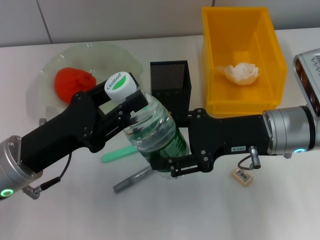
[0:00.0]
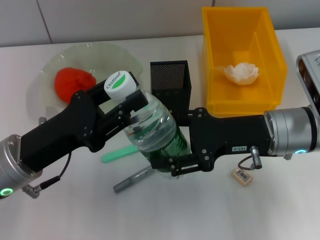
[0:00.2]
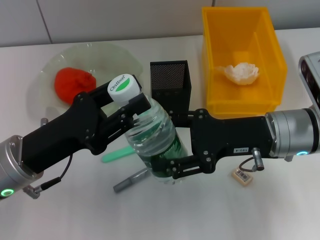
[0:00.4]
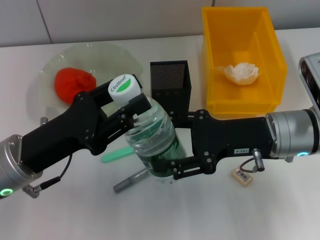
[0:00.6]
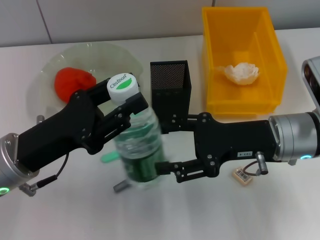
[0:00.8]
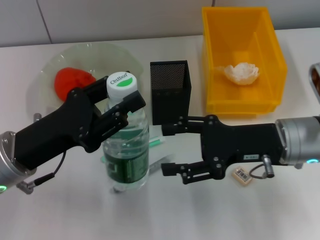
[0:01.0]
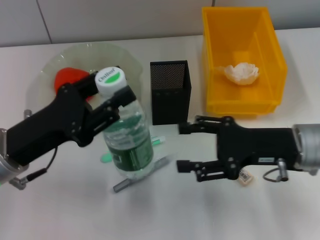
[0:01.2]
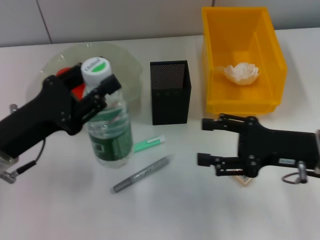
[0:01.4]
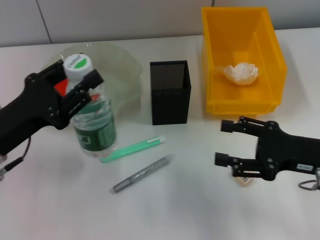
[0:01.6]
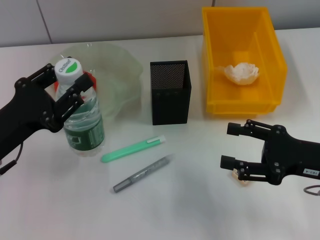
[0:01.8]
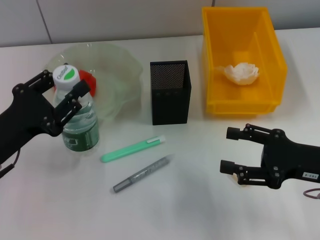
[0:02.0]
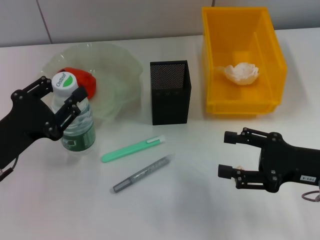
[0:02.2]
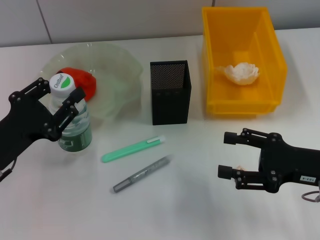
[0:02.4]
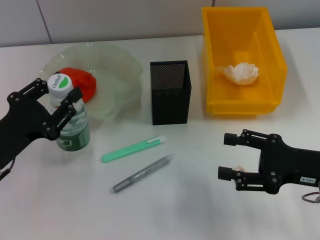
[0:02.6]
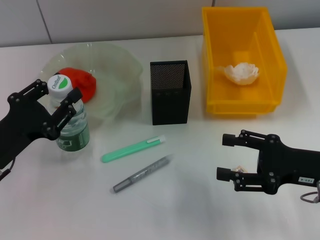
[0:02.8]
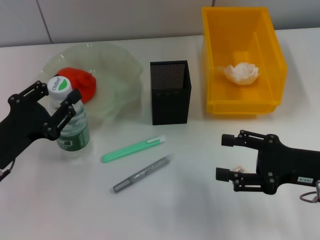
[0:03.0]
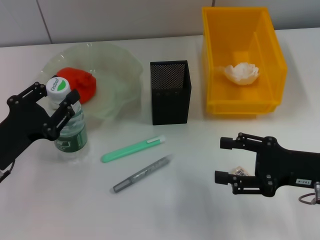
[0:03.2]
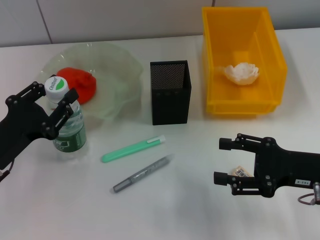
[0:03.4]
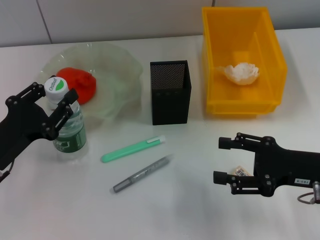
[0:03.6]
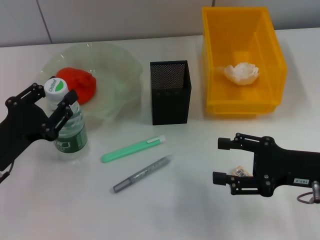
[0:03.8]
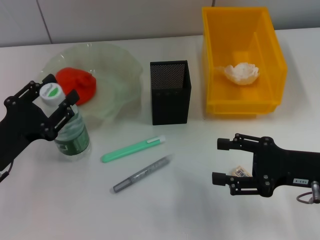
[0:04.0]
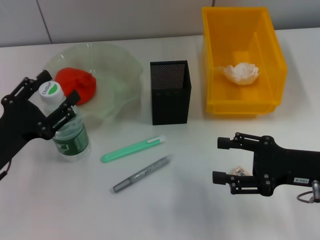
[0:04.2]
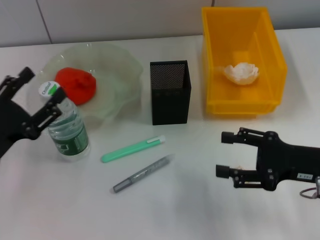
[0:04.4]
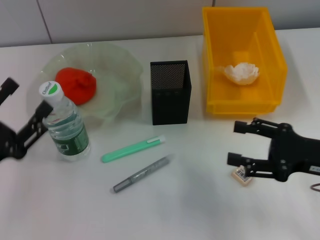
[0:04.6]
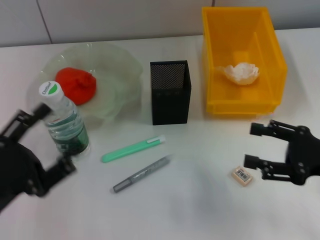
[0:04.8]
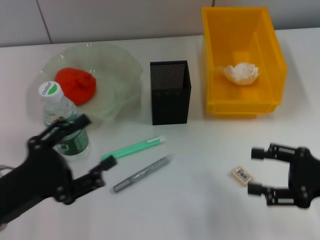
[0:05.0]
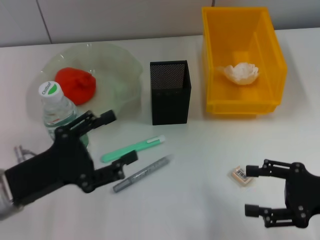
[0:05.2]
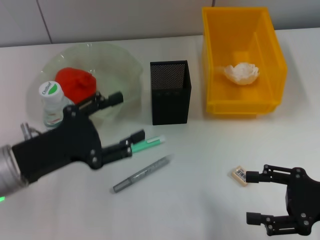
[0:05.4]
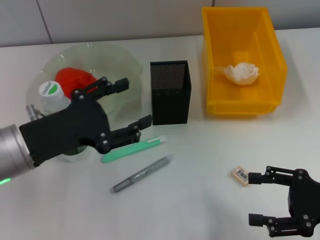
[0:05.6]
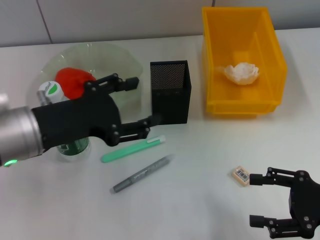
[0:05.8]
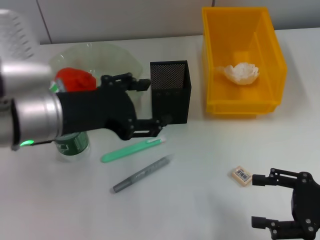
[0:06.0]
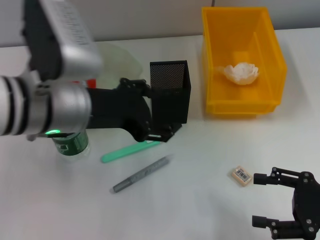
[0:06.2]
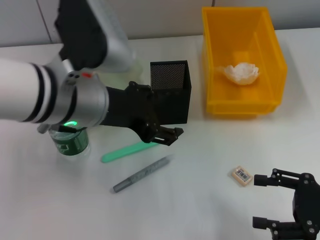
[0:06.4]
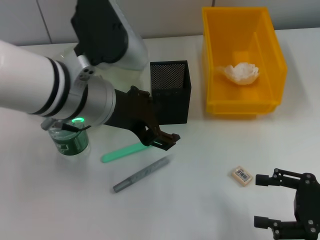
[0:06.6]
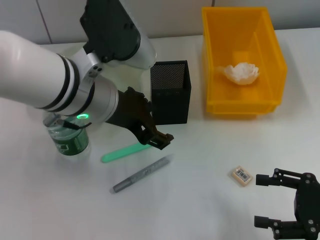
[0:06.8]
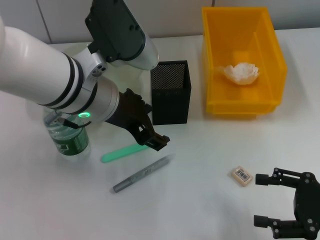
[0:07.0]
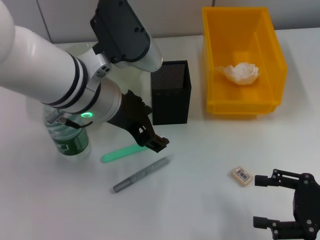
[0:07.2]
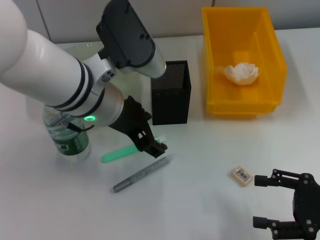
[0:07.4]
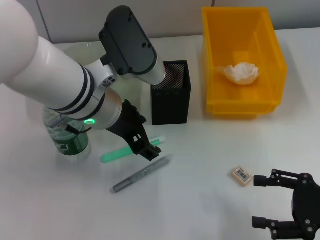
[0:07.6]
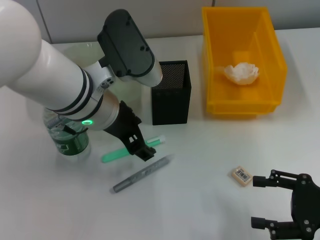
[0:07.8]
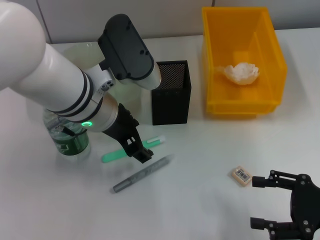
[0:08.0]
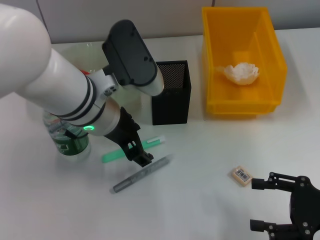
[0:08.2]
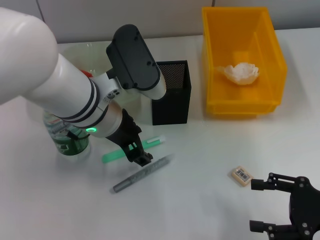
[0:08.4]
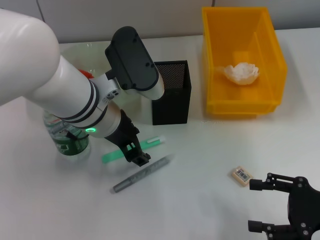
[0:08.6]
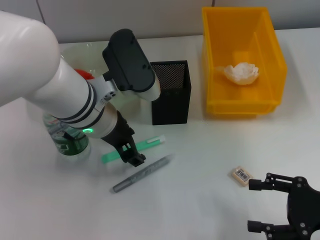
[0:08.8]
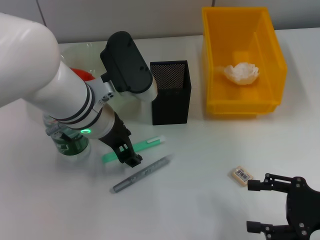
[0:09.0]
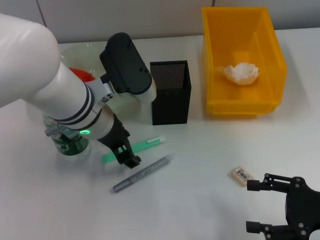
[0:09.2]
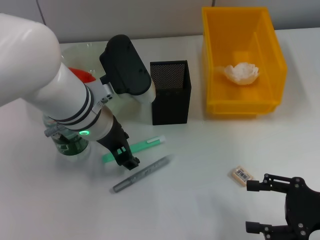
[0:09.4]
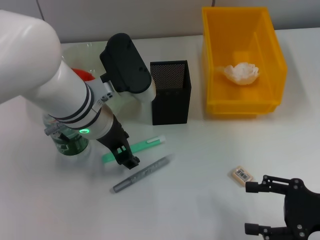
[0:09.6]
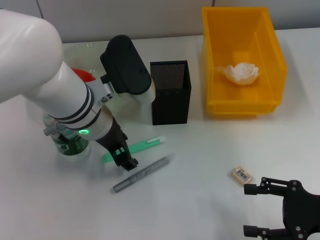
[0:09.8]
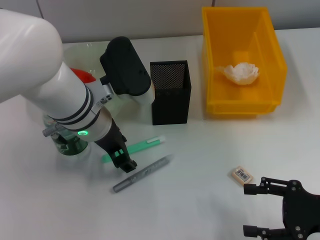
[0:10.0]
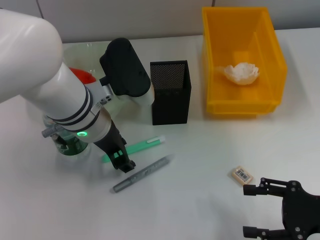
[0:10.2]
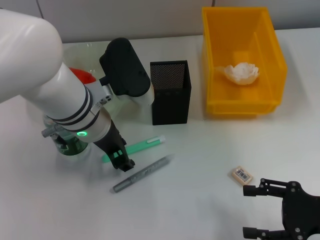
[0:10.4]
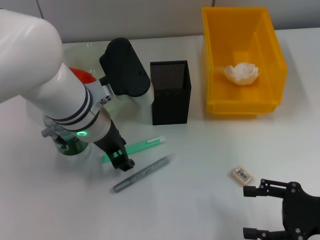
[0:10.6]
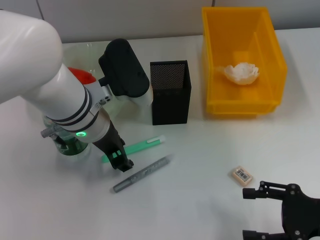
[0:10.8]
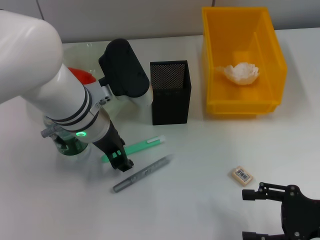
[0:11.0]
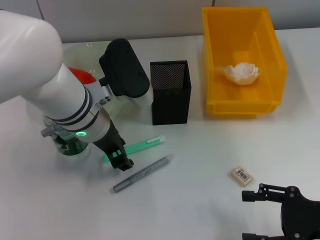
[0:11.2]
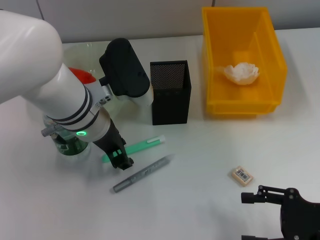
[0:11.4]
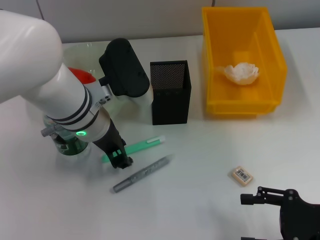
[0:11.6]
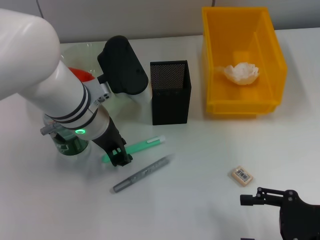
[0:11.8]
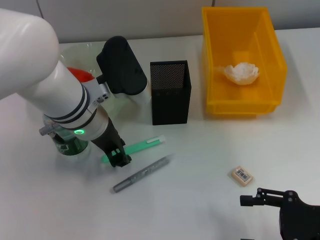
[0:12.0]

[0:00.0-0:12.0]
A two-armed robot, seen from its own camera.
Step, 0:01.0 to 0:04.0: Place the water bottle on the table with the left hand.
0:00.0 to 0:01.6: The right gripper moves to the right and backward, roughly 10 cm.
0:03.0 to 0:04.4: The left gripper opens up.
0:04.4 to 0:06.0: The left gripper heads upward and to the right, covering approximately 15 cm. The right gripper is displaced backward by about 5 cm.
0:06.0 to 0:07.6: The left gripper moves to the right, some 10 cm.
0:07.6 to 0:09.0: The grippers make only small movements.
0:09.0 to 0:10.4: Both grippers stay about where they are.
0:10.4 to 0:12.0: The two grippers keep their place.

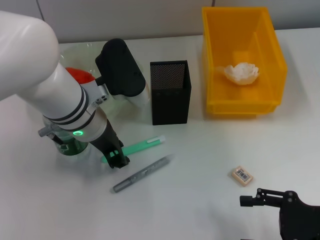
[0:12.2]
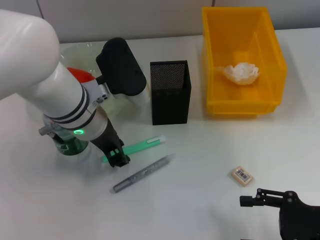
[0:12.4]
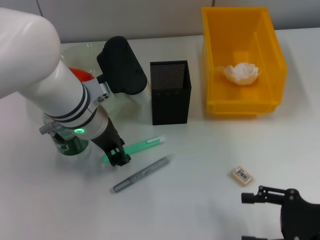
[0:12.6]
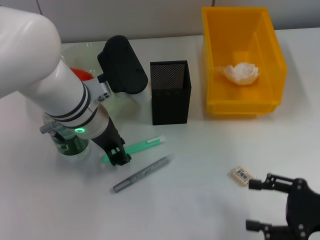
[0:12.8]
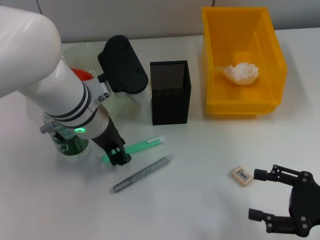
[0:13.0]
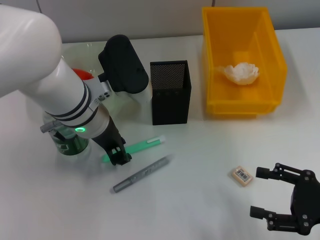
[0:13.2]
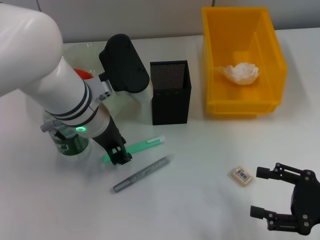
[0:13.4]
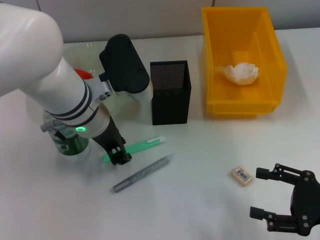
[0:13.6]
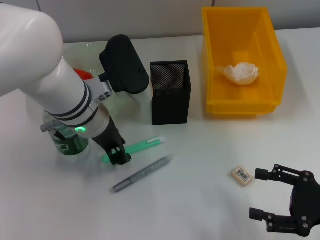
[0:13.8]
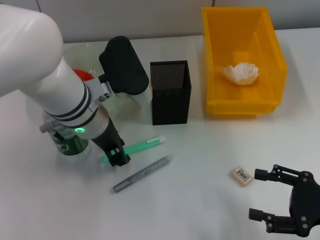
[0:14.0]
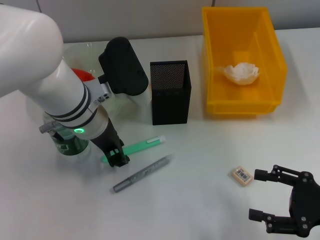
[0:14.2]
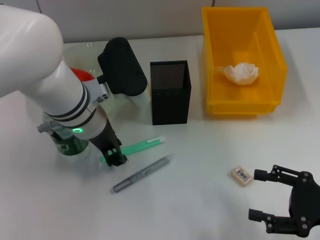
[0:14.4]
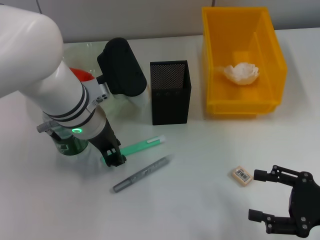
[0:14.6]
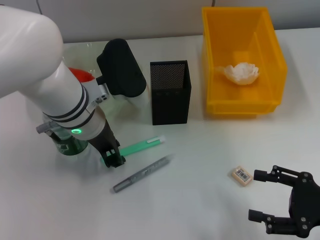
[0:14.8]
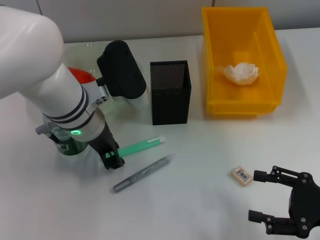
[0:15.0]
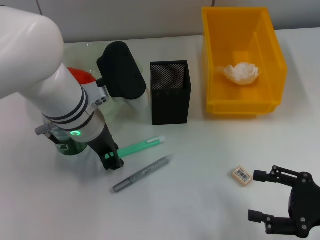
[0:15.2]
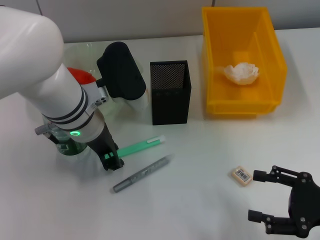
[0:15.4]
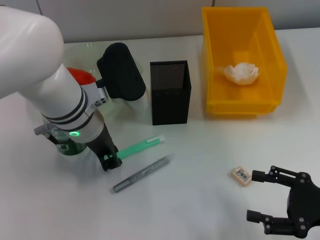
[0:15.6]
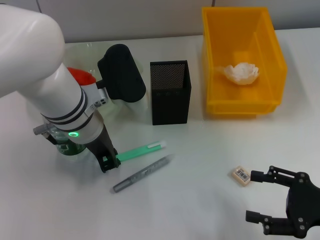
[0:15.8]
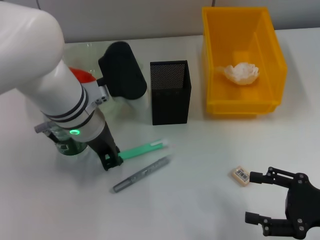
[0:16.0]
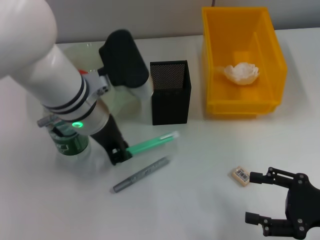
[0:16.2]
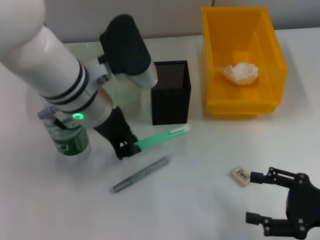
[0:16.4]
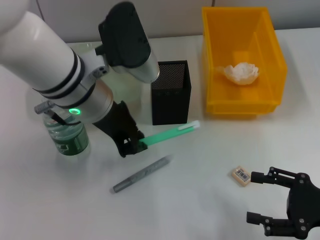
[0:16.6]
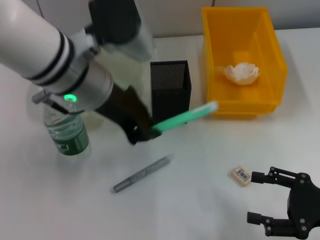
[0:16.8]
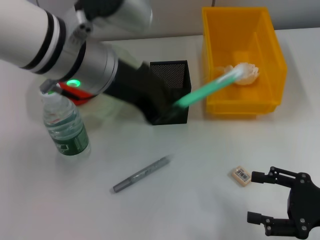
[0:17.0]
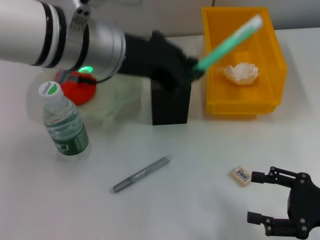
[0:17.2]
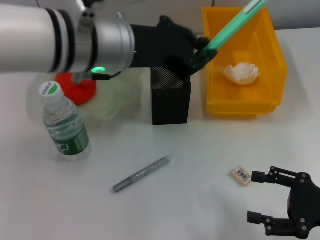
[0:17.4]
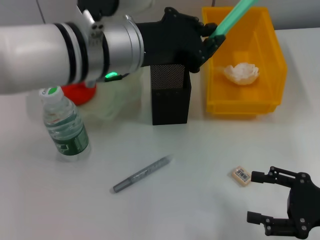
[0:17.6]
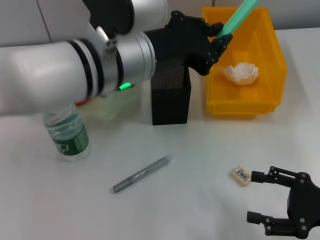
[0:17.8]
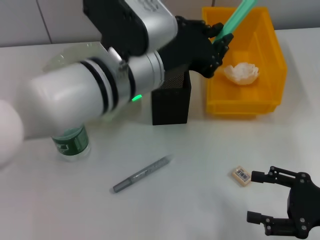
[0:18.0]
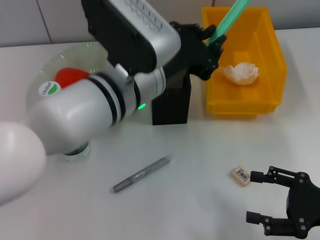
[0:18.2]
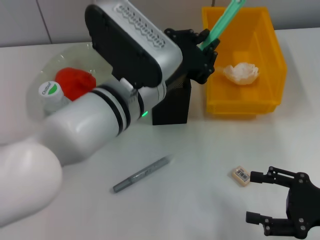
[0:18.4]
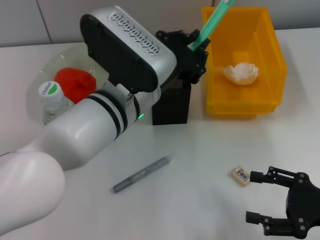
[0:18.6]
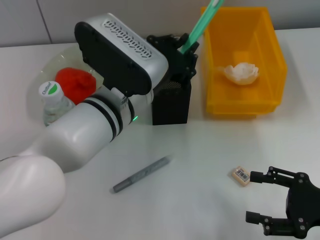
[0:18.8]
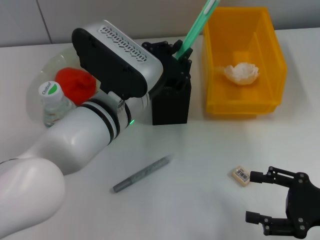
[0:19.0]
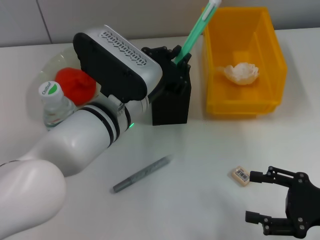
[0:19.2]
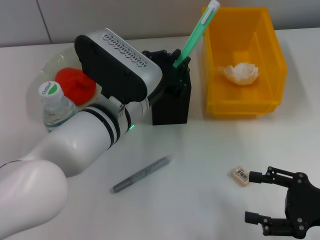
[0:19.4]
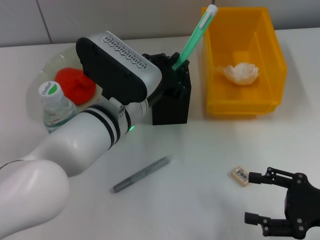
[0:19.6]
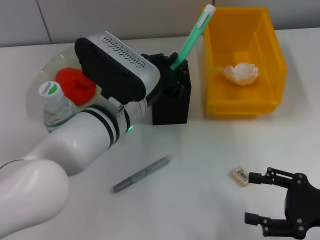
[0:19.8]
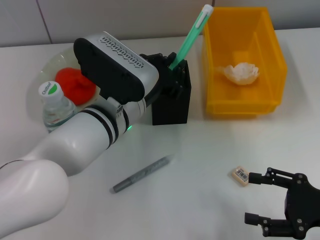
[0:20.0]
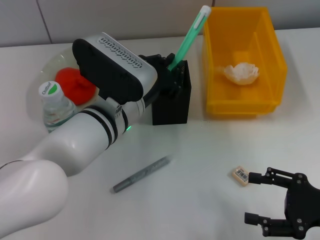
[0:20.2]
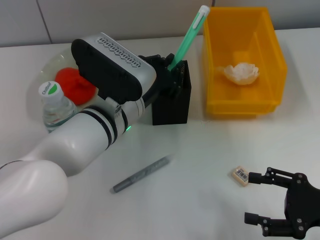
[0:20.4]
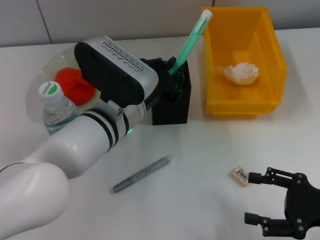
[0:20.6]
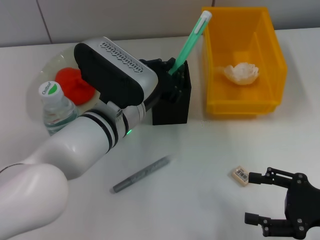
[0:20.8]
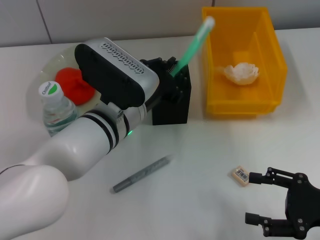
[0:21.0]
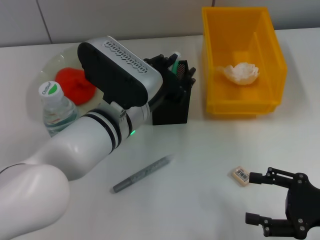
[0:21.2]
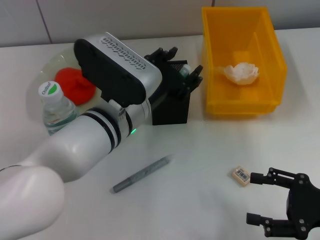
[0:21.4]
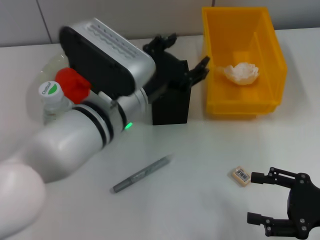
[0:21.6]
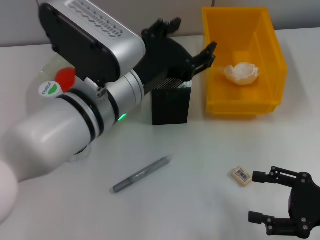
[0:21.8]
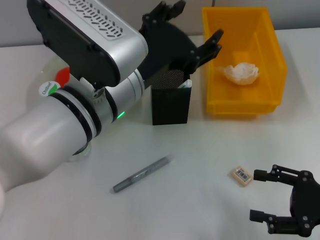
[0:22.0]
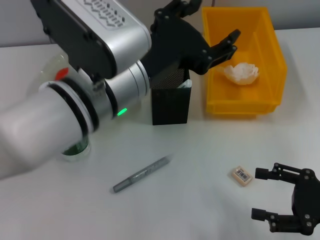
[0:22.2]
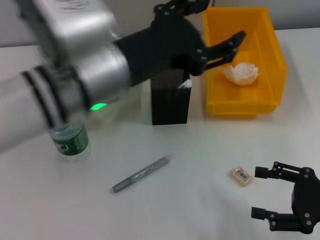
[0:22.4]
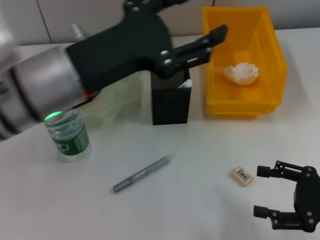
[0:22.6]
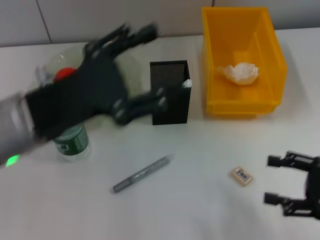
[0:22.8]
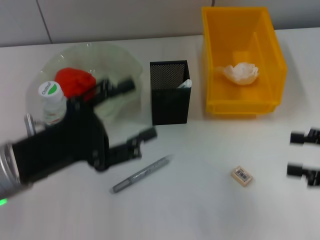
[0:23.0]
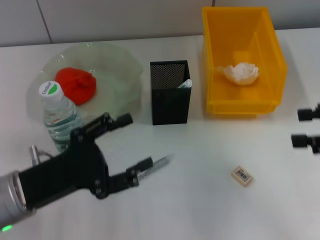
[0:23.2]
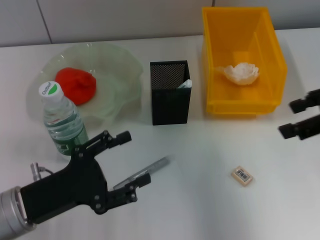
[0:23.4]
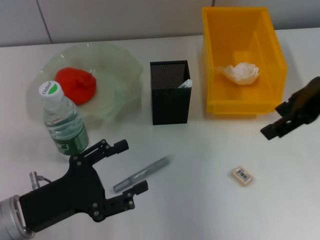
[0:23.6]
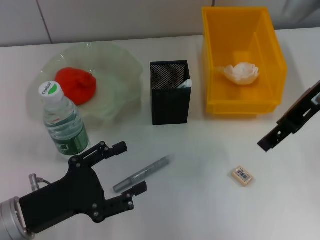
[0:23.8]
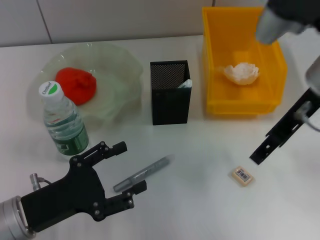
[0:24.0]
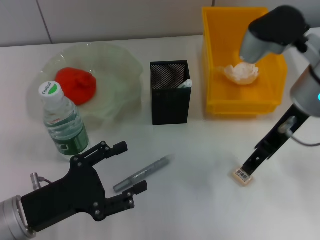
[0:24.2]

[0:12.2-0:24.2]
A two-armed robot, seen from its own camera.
Step, 0:12.2 to 0:15.6: Grab the blue utility knife with the left hand.
Step, 0:15.8 to 0:21.4: Place the blue utility knife into the pen holder with the left hand.
0:12.2 to 0:13.8: The grippers stay close to where they were, moving slightly.
0:13.8 to 0:15.2: Neither gripper changes place.
0:15.2 to 0:16.6: The left gripper goes approximately 5 cm upward.
0:16.6 to 0:18.2: The left gripper changes place by roughly 5 cm.
0:18.2 to 0:19.8: The left gripper heads downward, covering about 5 cm.
0:19.8 to 0:21.2: Both grippers stay about where they are.
0:21.2 to 0:22.6: The left gripper is displaced upward and to the left by roughly 10 cm, and opens up.
0:22.6 to 0:24.2: The right gripper shifts approximately 25 cm forward, upward and to the left. The left gripper moves downward, to the left and backward, about 20 cm.
